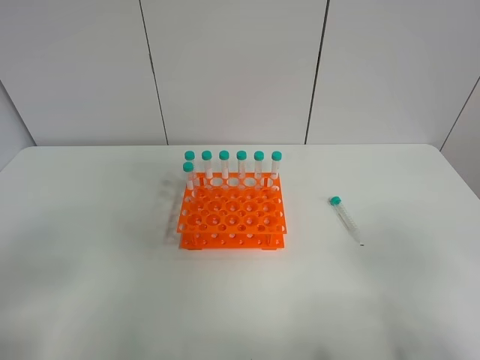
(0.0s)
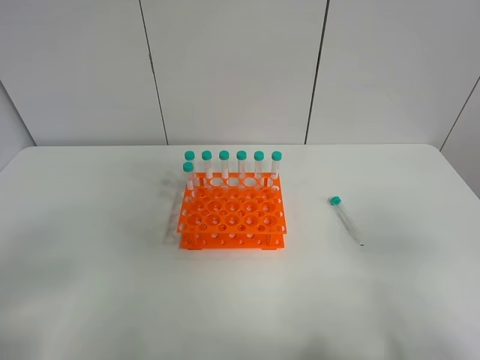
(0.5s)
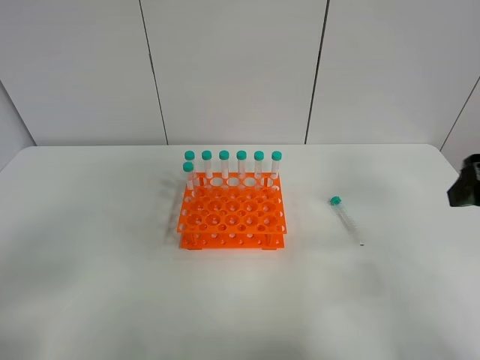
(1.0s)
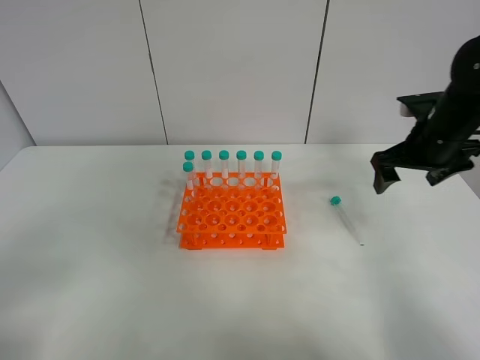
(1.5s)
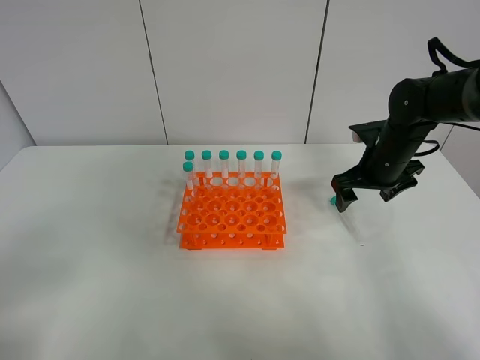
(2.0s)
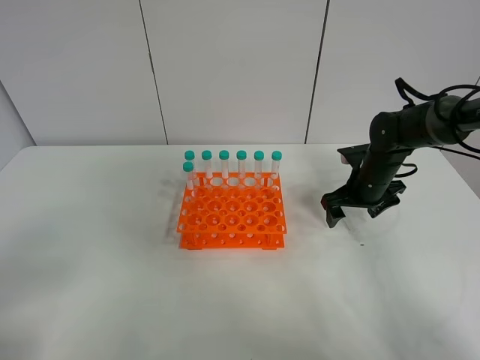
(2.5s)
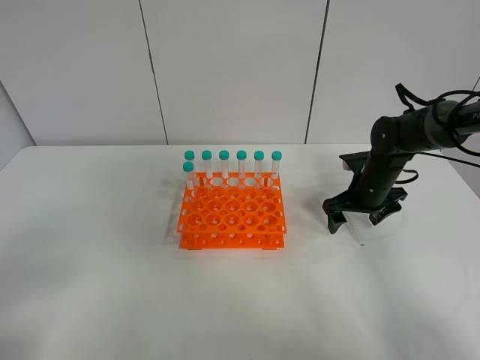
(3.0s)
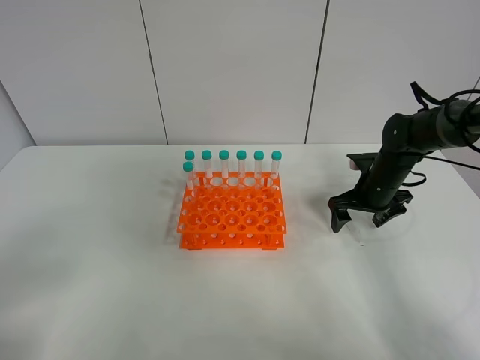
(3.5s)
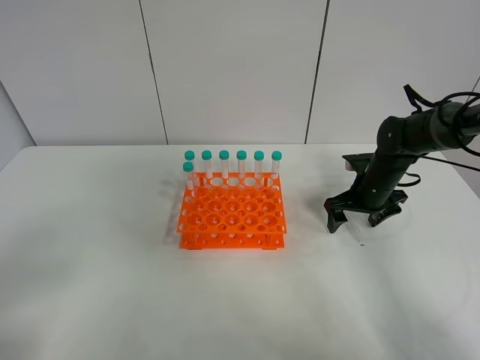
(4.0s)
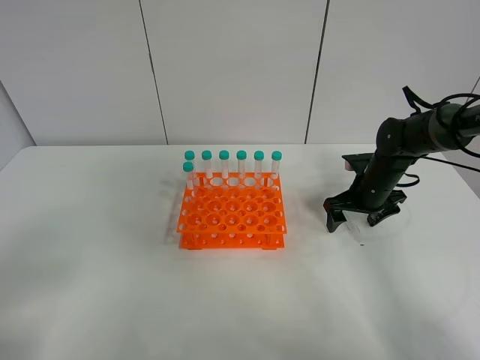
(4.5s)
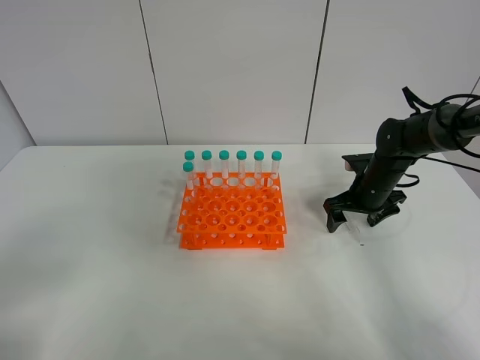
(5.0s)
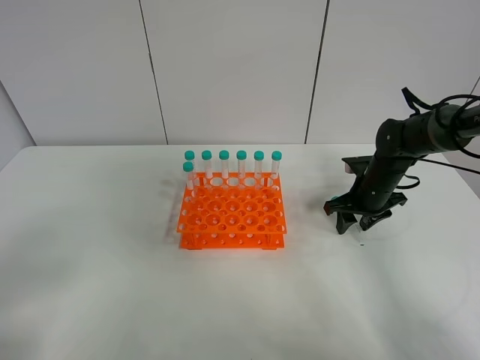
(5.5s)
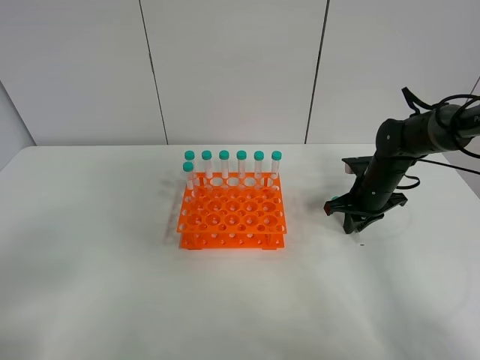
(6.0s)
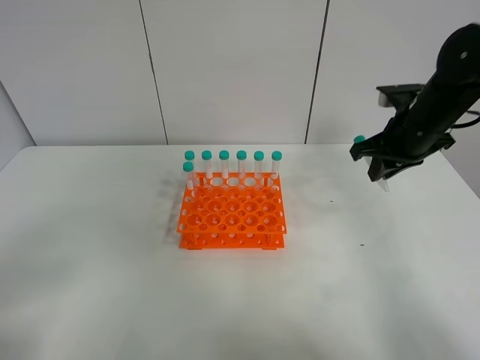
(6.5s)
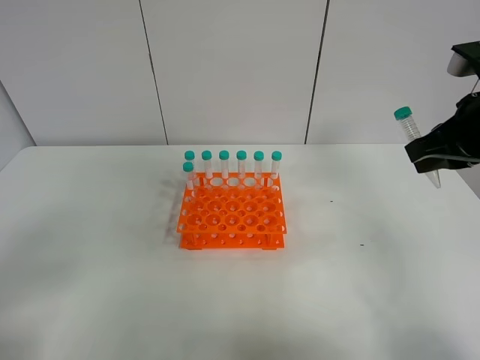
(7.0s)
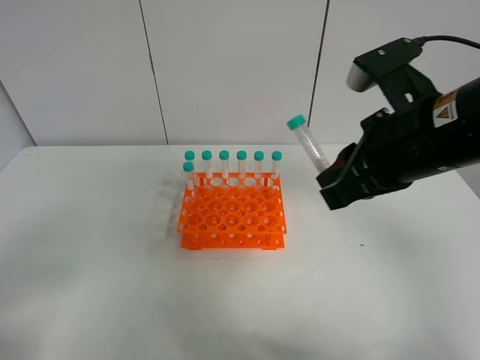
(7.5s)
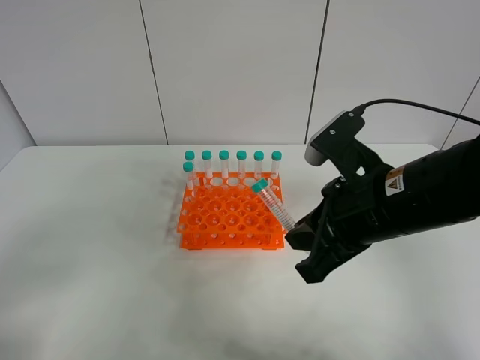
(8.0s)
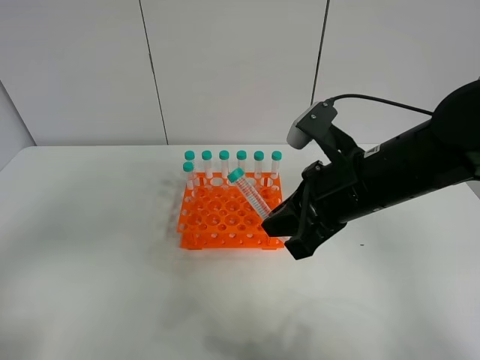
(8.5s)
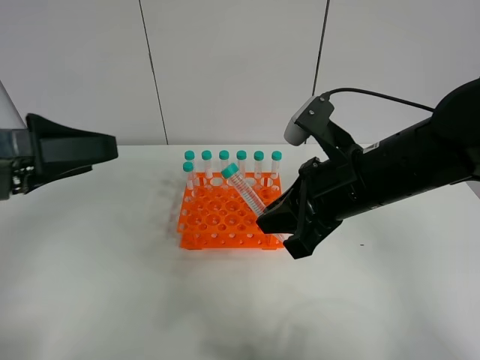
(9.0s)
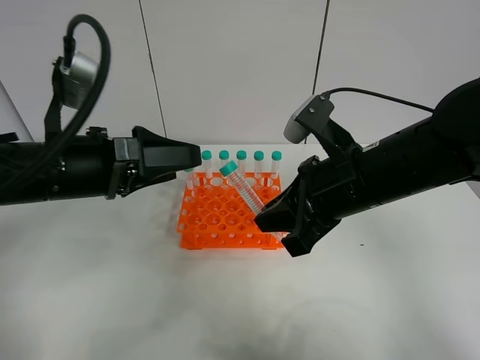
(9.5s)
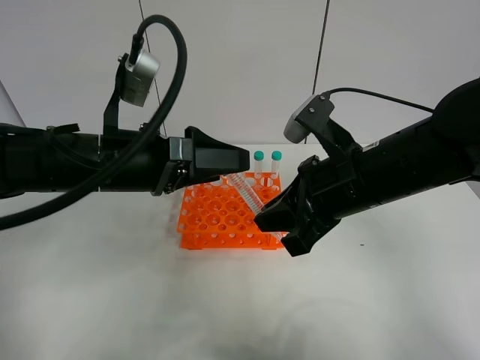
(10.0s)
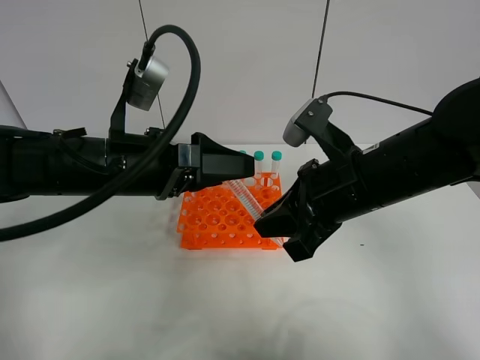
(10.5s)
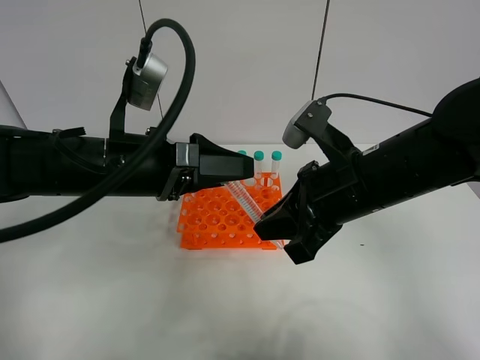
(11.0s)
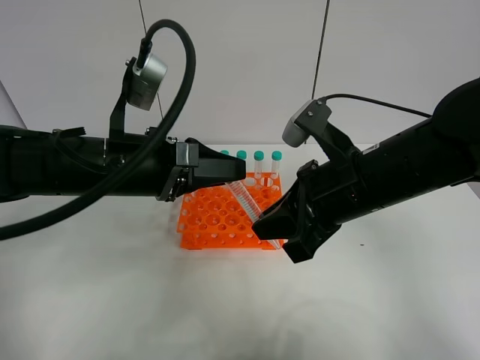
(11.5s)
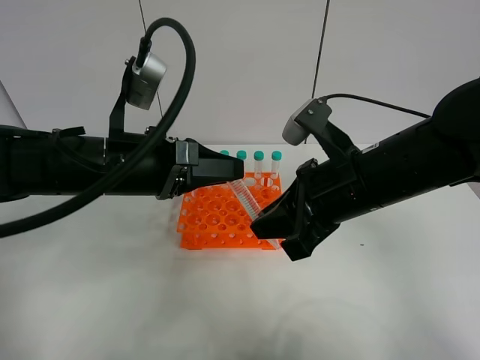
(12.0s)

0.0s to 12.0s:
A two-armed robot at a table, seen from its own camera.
Task of the whole recording: Put the test tube on the table back onto the test tube rack.
Step, 0.0s to 6.5s: Pick up the test tube with the right gripper.
0.0s to 2.0s: The right gripper goes some 40 cm forward.
2.0s to 4.0s: The right gripper is displaced downward by some 5 cm.
4.0s to 6.0s: The right gripper closes its fingers.
6.0s to 8.0s: The right gripper shifts roughly 30 cm backward, upward and to the left.
8.0s to 10.0s: The left gripper shifts roughly 30 cm forward and to the right.
10.0s to 12.0s: The left gripper closes up.

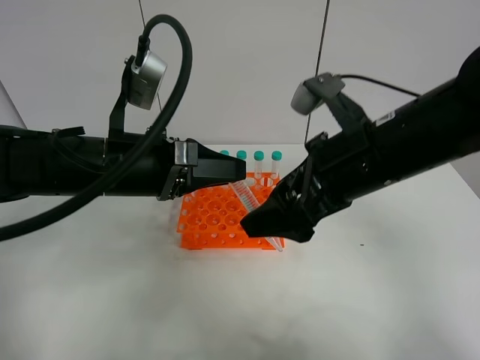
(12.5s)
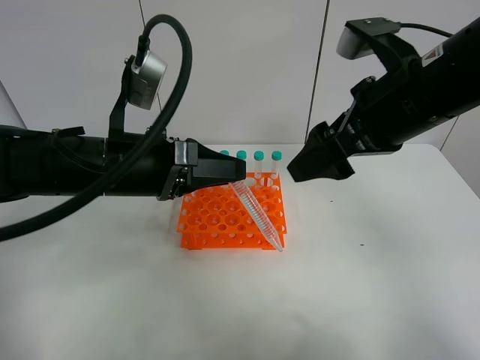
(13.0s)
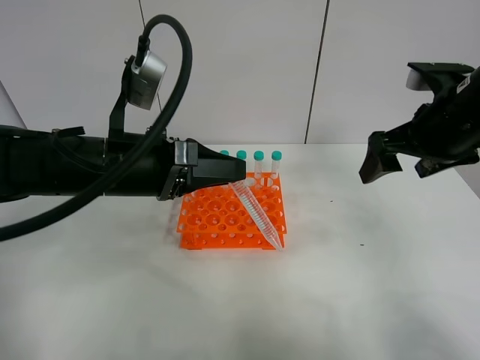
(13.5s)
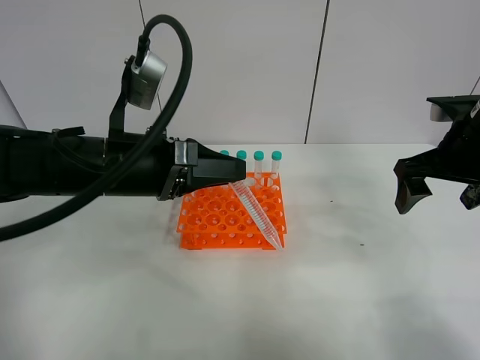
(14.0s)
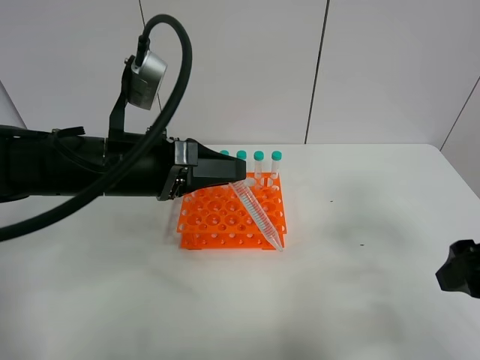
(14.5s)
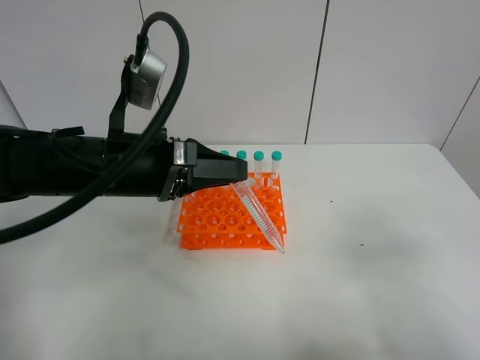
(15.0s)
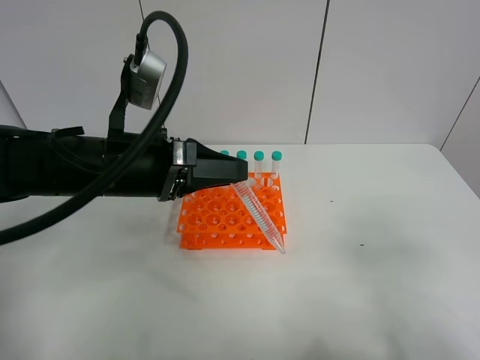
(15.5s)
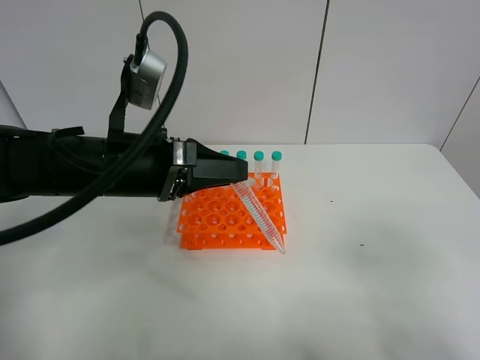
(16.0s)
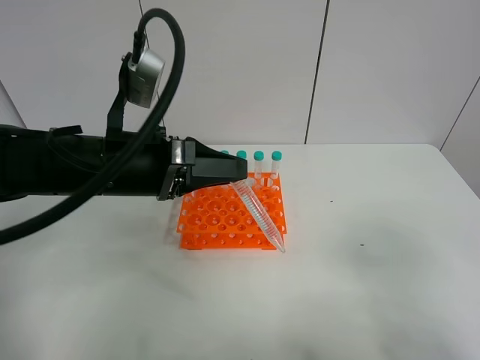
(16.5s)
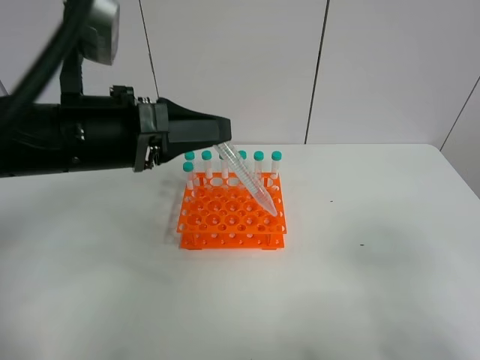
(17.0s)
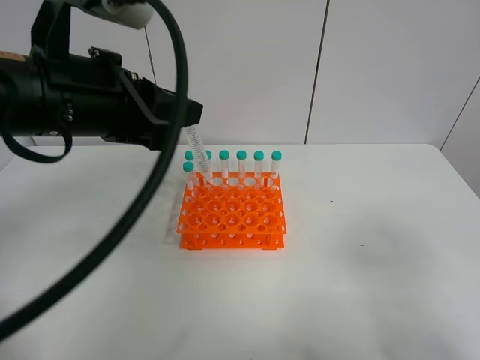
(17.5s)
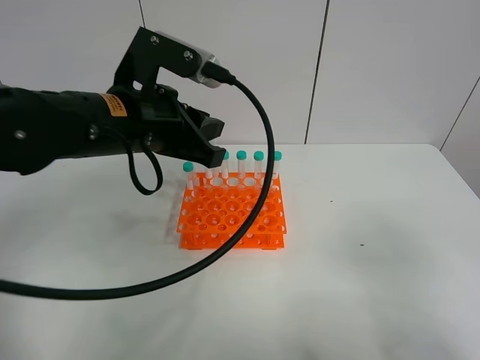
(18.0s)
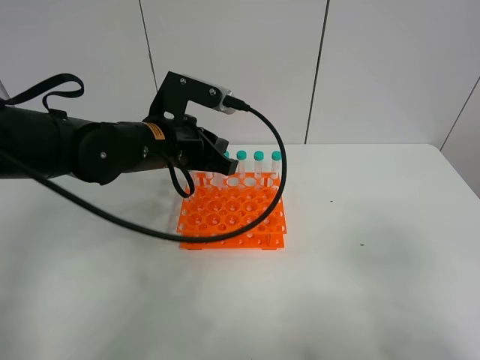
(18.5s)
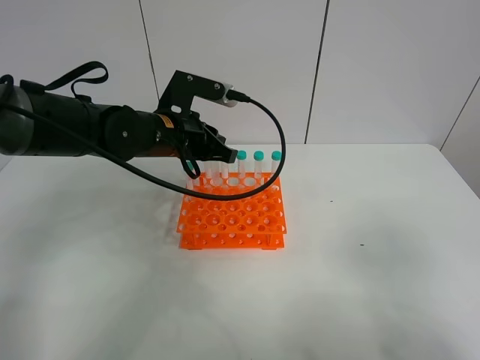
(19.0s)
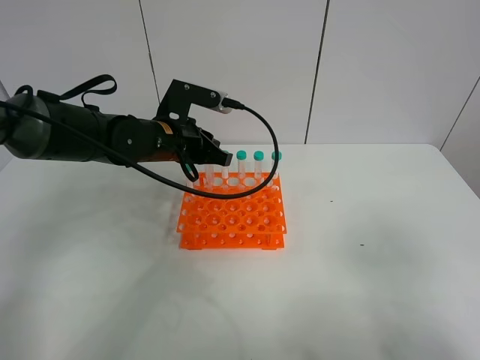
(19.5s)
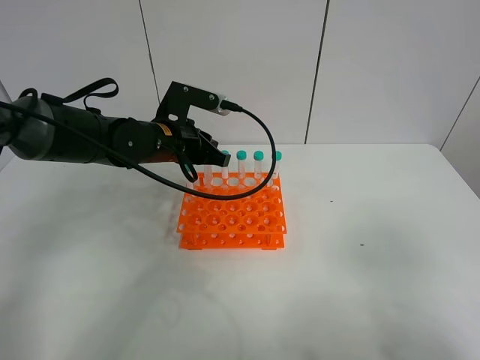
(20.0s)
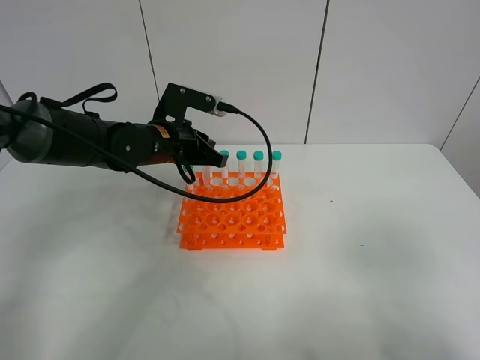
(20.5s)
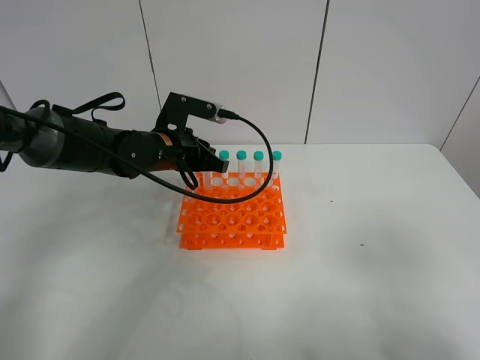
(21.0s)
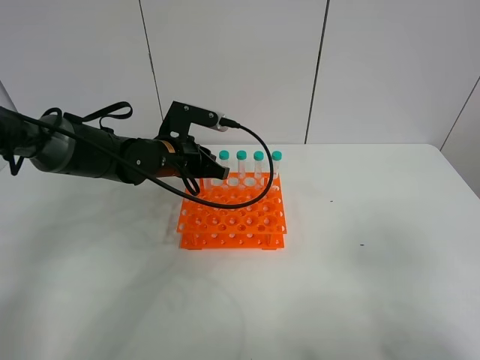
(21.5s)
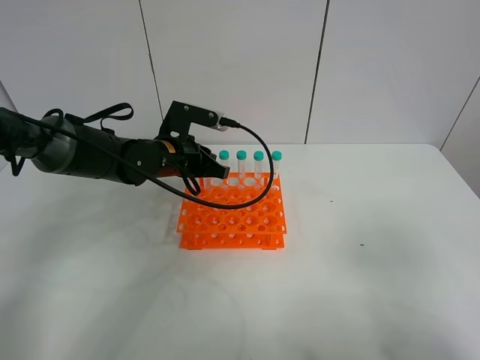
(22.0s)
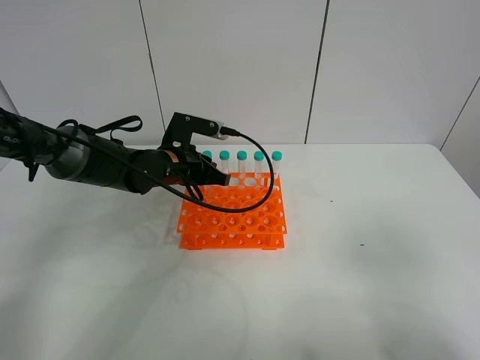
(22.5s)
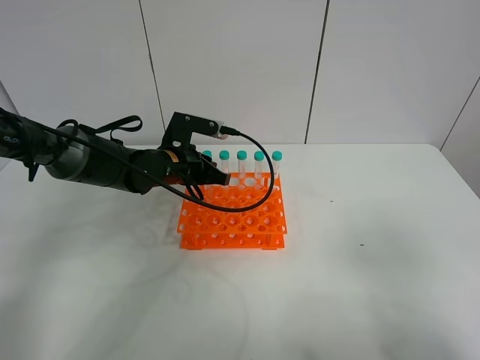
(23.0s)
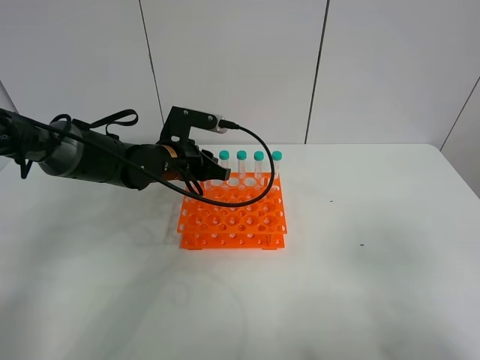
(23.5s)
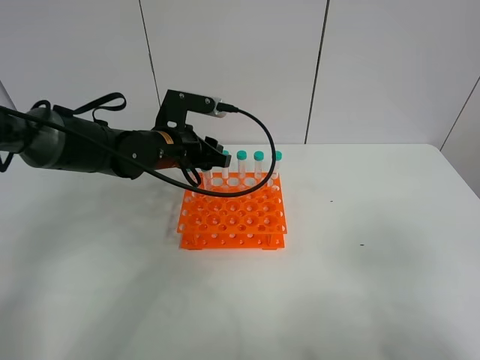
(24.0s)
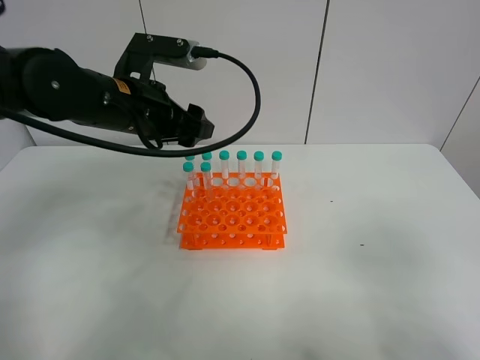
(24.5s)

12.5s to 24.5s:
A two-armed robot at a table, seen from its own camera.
Task of the whole recording: Put the test tube on the table back onto the test tube rack.
12.5s to 14.5s: The right gripper goes about 20 cm to the right and backward.
14.5s to 16.5s: The right gripper heads backward, covering approximately 10 cm.
16.5s to 18.5s: The left gripper goes about 10 cm forward, and travels upward and back again, roughly 10 cm each way.
18.5s to 20.5s: The left gripper heads forward, covering about 5 cm.
20.5s to 22.5s: The left gripper changes place by about 5 cm.
22.5s to 24.5s: The left gripper is displaced upward and backward by about 15 cm, and opens up.

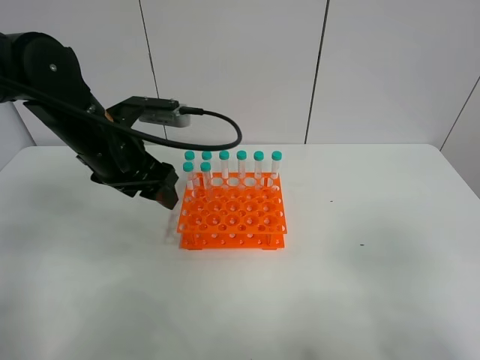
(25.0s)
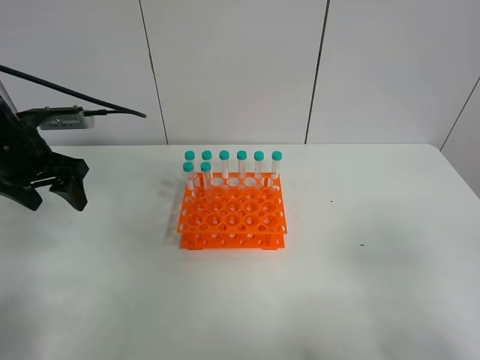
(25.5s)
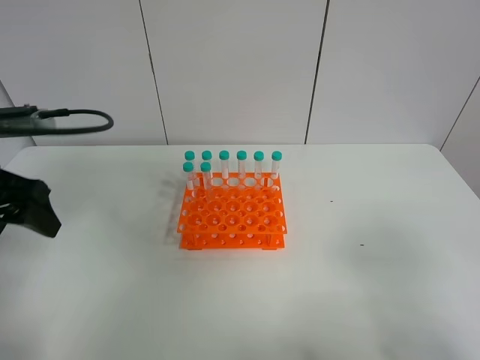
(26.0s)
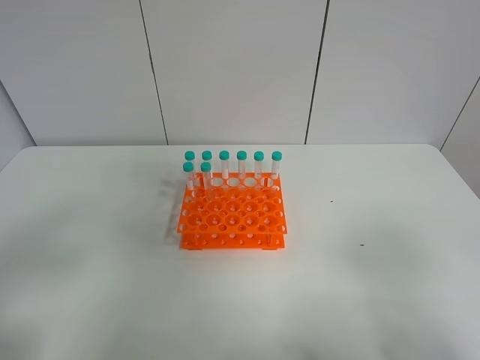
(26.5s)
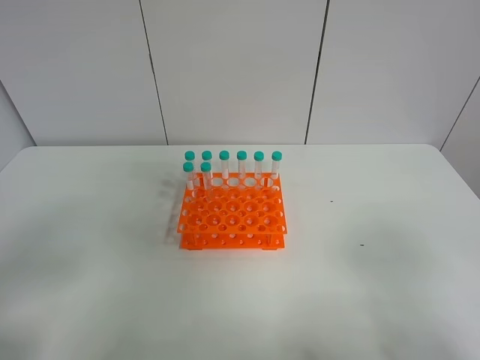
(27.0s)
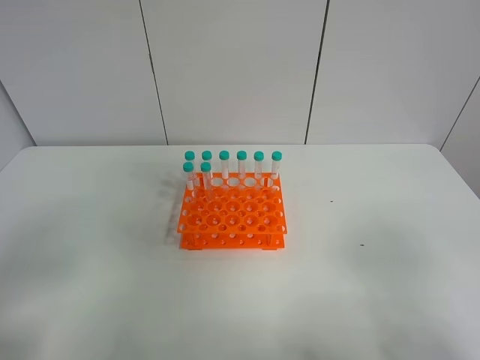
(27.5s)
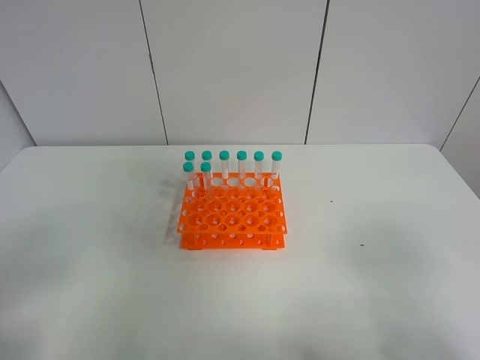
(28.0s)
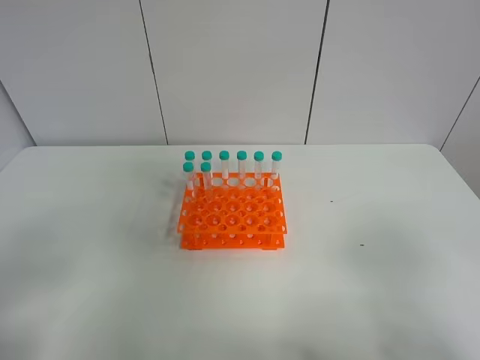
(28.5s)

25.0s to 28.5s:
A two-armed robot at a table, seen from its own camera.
Task of the whole recording: Put the test tube on the table back onto the test tube rack.
25.0s to 27.0s: The left gripper moves backward and to the left, about 30 cm.
